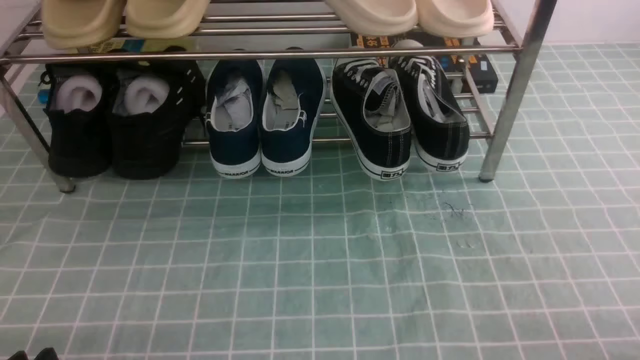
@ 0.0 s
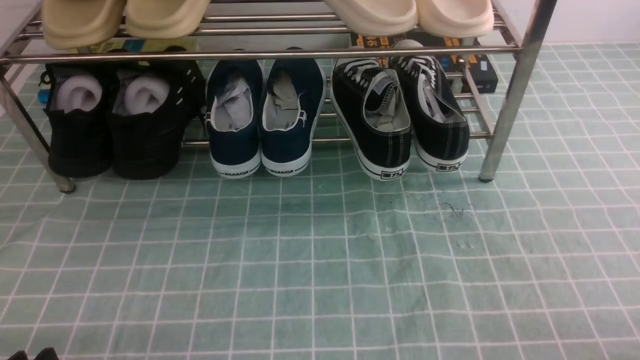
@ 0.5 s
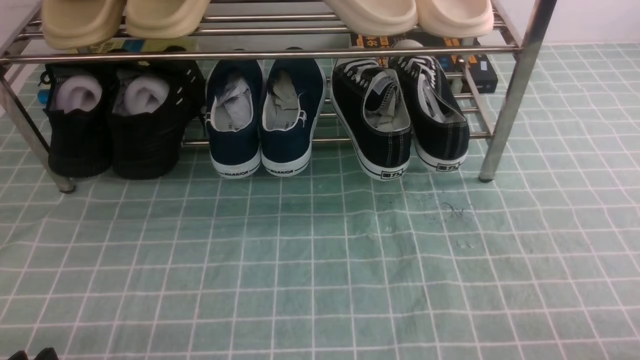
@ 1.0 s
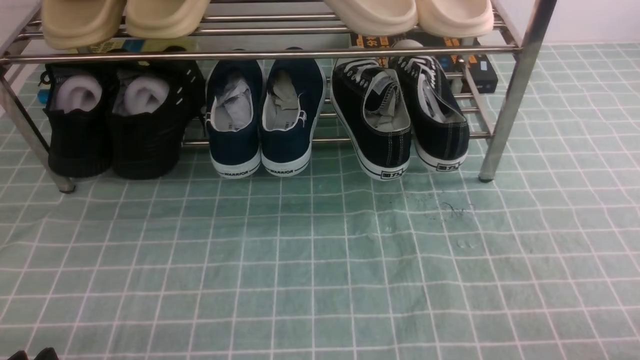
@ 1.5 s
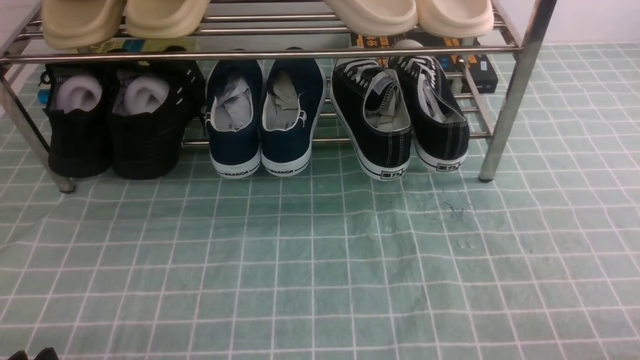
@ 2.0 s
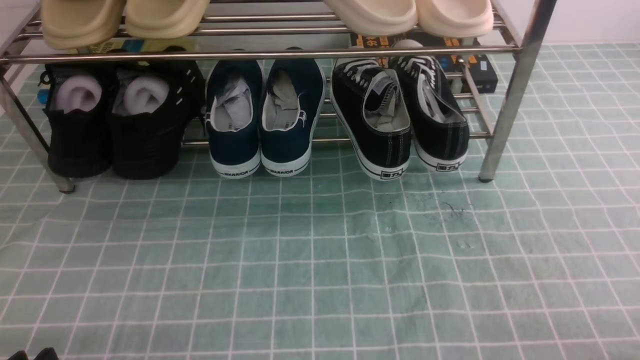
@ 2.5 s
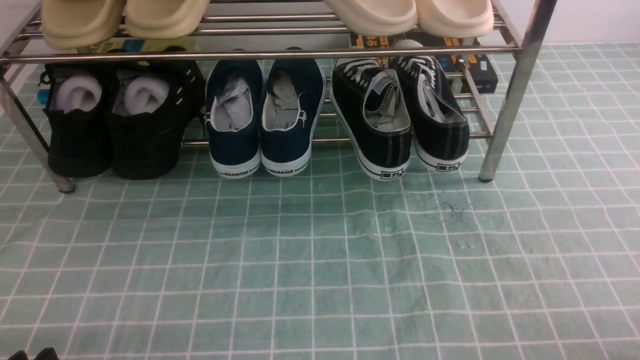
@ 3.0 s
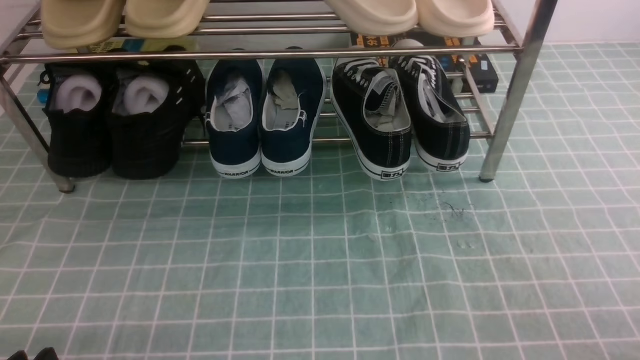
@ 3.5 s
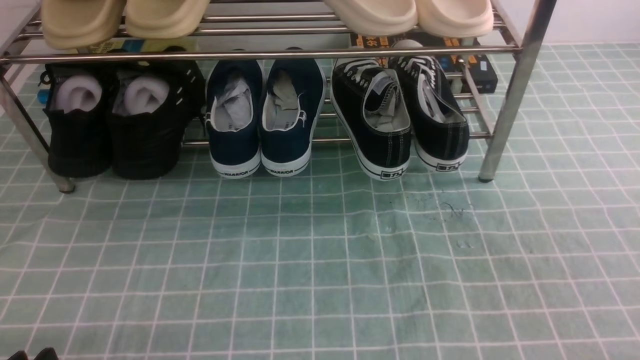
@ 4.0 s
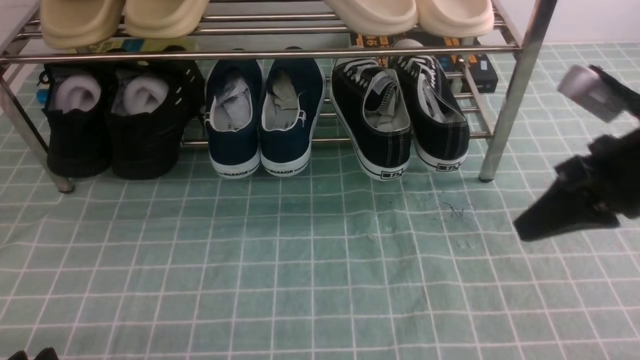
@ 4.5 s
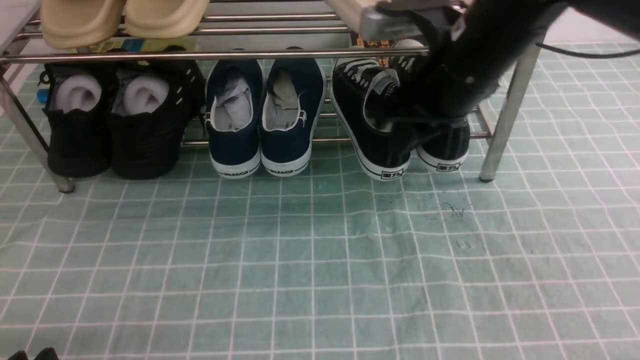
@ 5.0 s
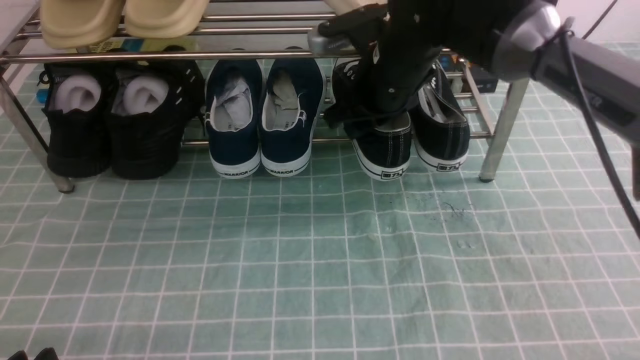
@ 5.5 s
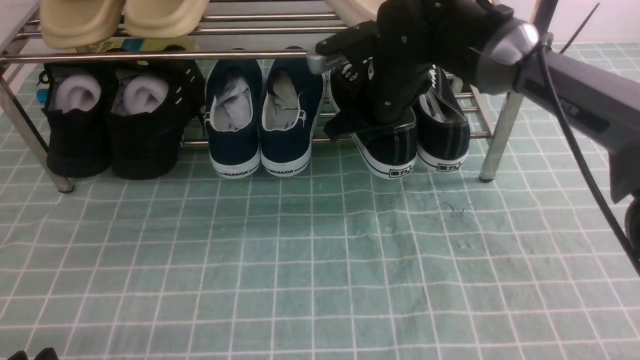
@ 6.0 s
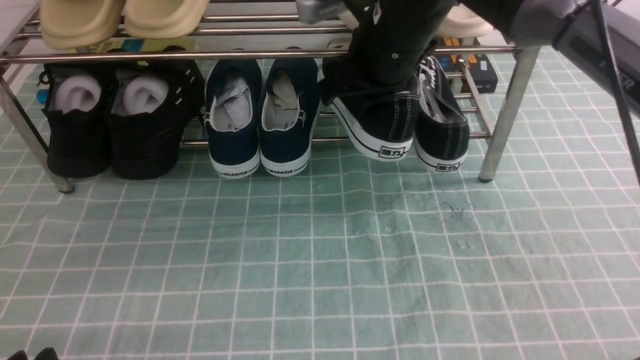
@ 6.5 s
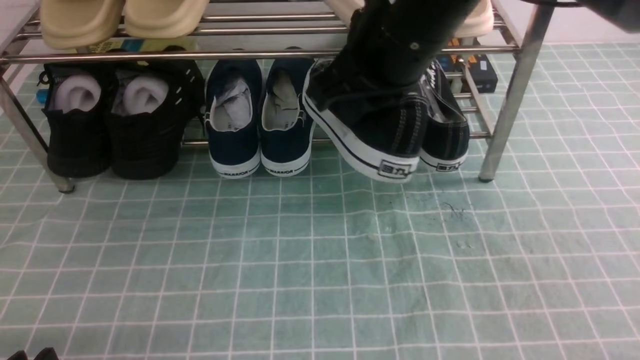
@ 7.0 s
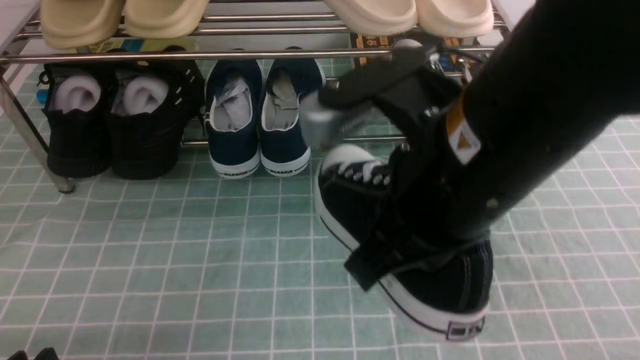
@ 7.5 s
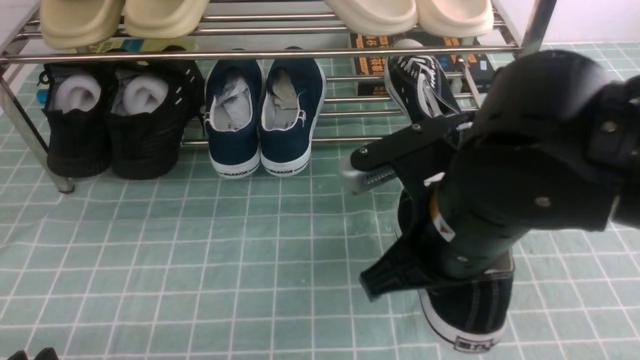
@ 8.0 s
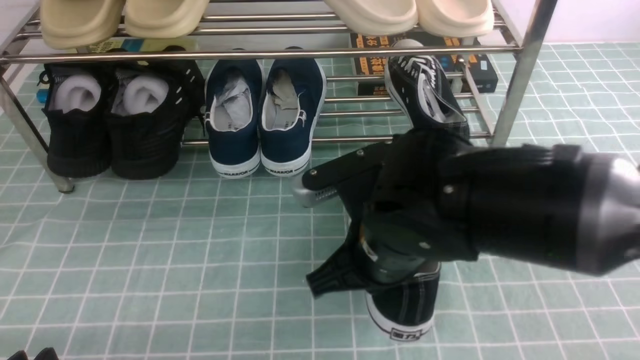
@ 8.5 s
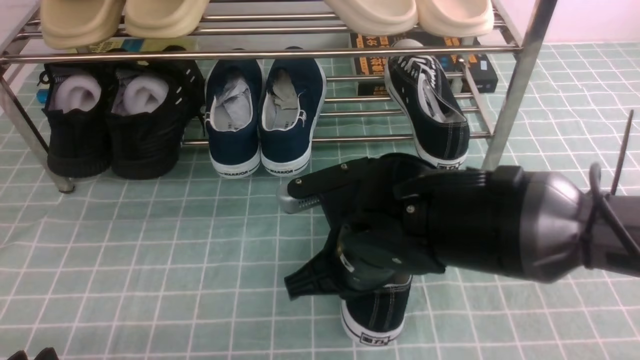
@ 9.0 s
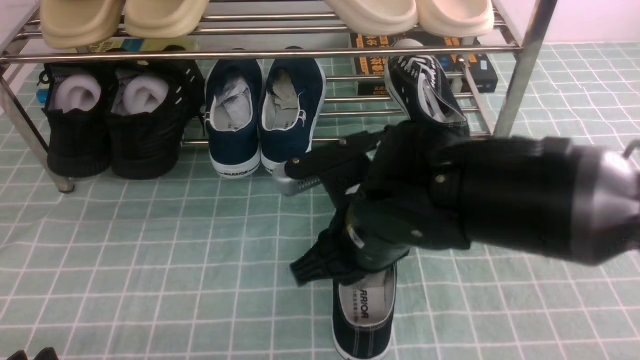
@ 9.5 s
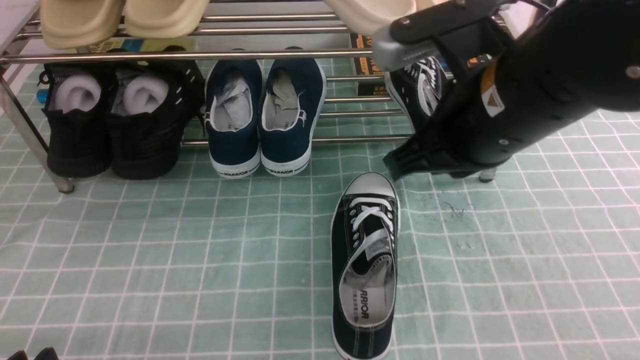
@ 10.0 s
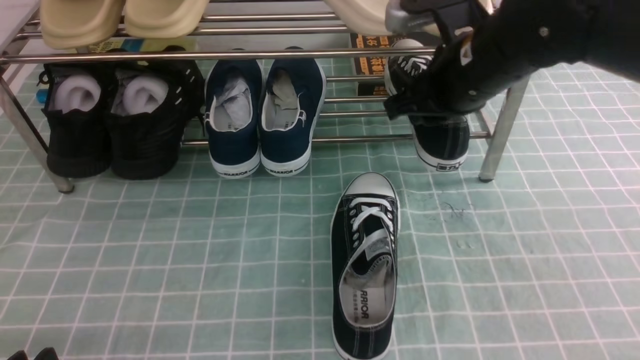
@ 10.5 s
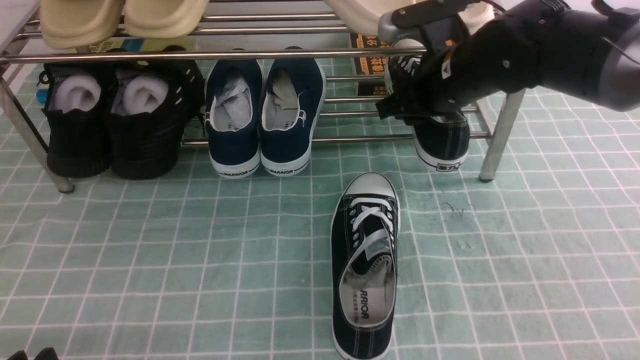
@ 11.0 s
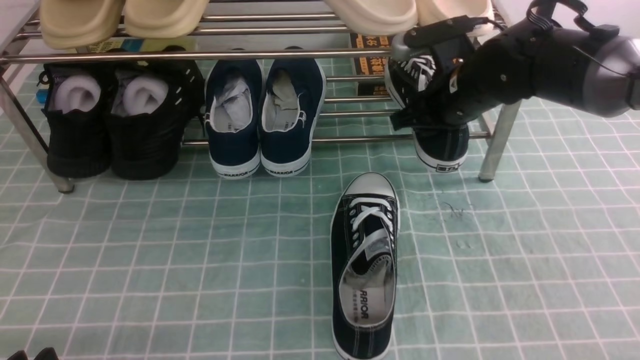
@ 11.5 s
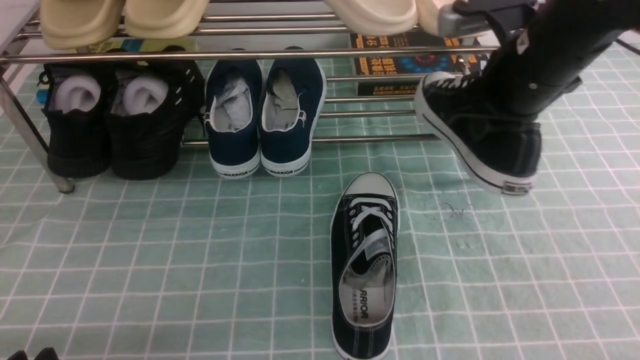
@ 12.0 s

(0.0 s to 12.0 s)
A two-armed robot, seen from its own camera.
Step, 0.0 s - 5.5 s: use the right arm to clamp a shoe on the right side of the shoe rack.
Step, 6.0 s - 9.5 s: use the right arm to take out the clamped shoe from the shoe rack and put it down.
Step, 10.0 s - 11.5 s: use the right arm to clamp a shoe on the right side of the shoe rack.
4.0 s - 6.0 s: The right gripper heads forward and to the left, covering approximately 40 cm, and opens its fingers.
6.0 s - 8.0 s: The right gripper travels backward by some 25 cm, and closes its fingers.
8.0 s - 10.0 s: The right gripper goes some 5 cm forward, travels downward and back again, roughly 10 cm each way, and opens, then closes again.
10.0 s - 12.0 s: The right gripper goes roughly 15 cm forward and to the right, and opens, then closes once more.

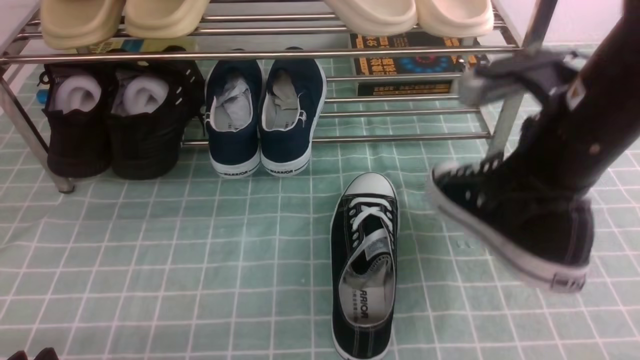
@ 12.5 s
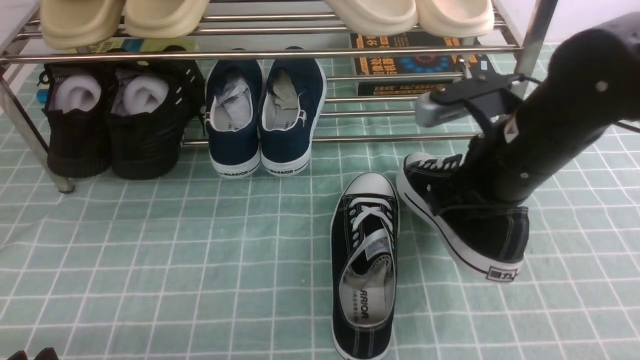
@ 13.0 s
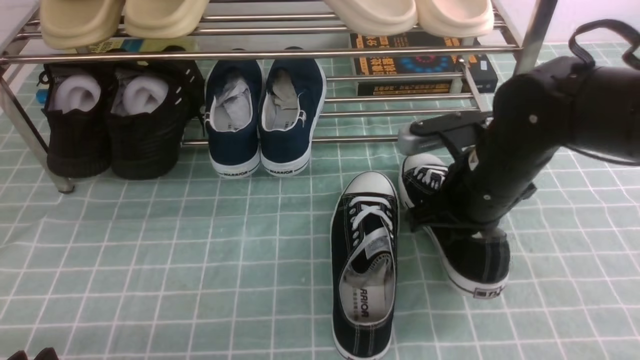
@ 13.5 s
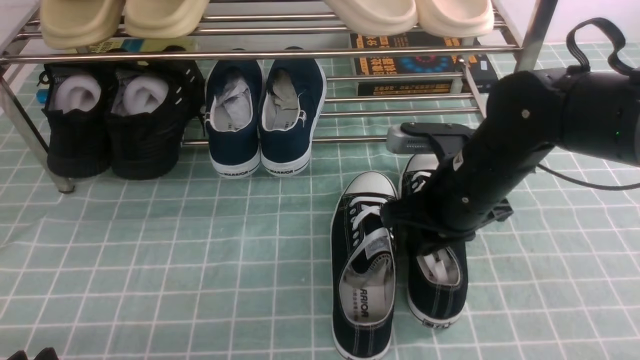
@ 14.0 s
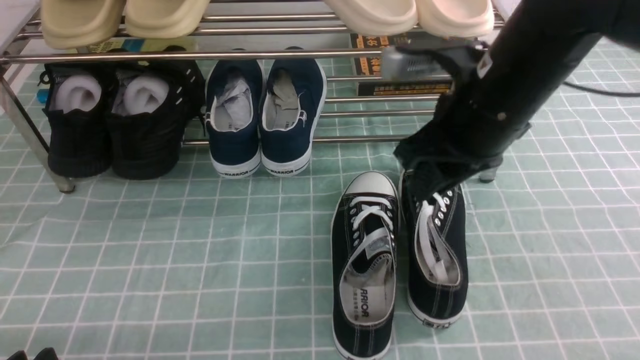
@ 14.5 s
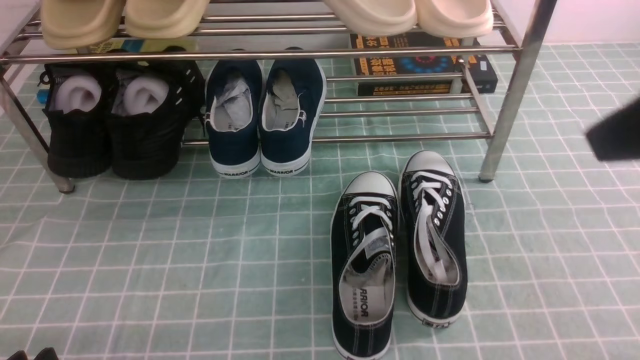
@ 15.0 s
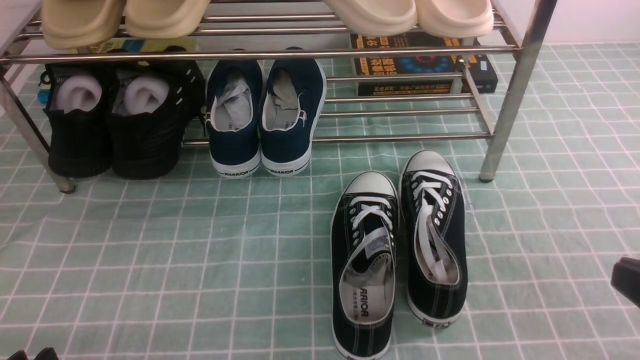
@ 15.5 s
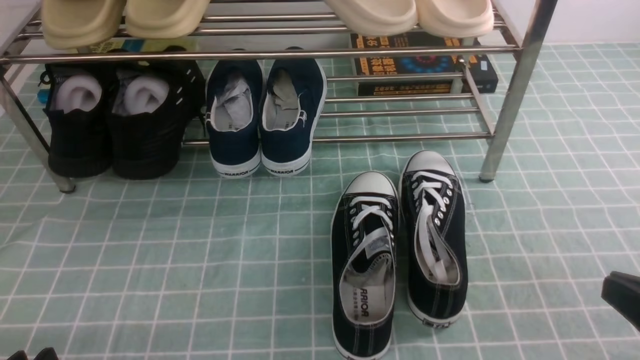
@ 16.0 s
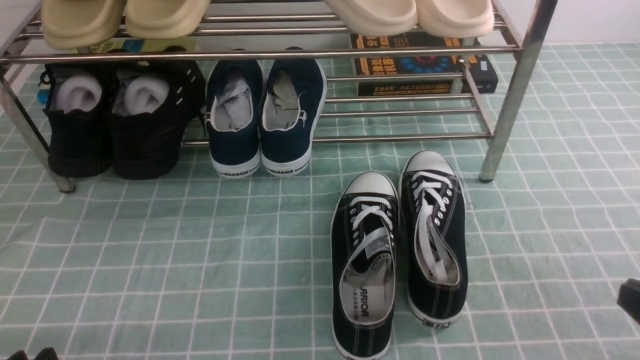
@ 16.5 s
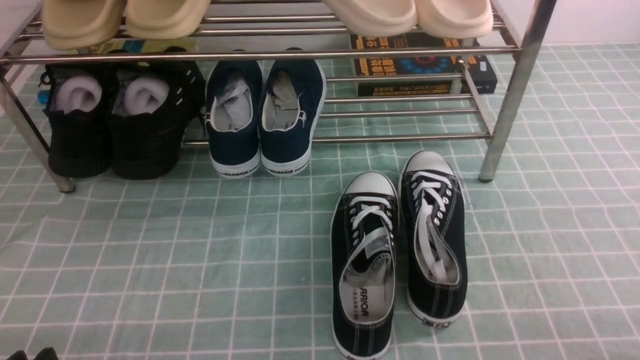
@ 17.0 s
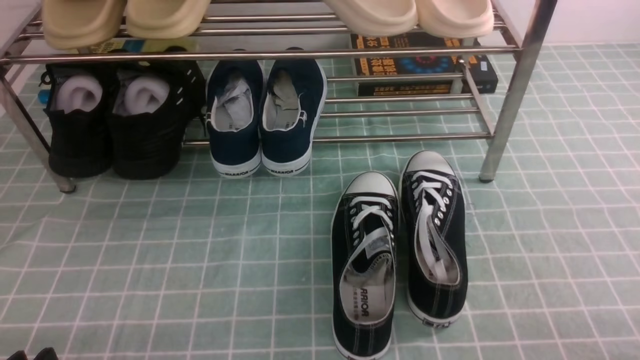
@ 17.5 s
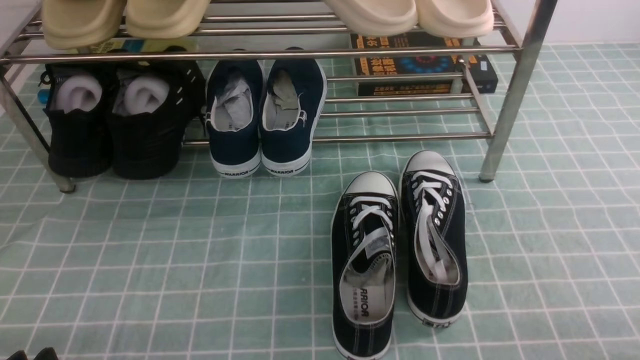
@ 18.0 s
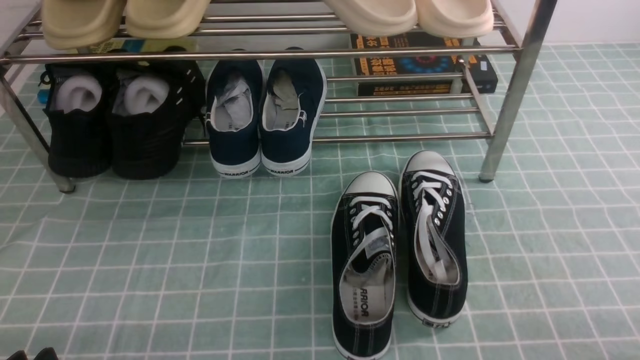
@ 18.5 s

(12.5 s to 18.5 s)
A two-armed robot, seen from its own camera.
Step, 12.5 s - 14.5 s: use the right arm to take out the clamped shoe from the shoe rack and put it down.
12.5 s - 14.5 s: The right gripper travels to the left by about 5 cm, goes downward and returns, roughly 10 cm each way, and opens up.
14.5 s - 16.5 s: The right gripper shifts about 25 cm backward and to the right, and closes up.
